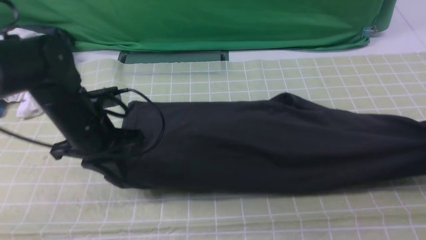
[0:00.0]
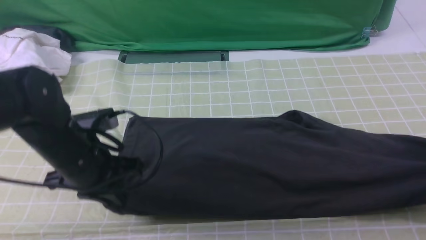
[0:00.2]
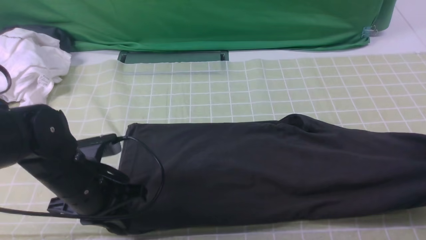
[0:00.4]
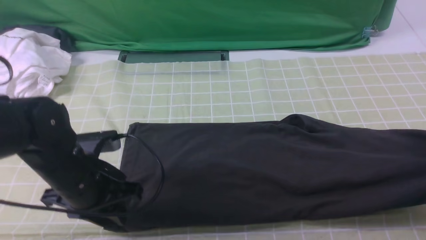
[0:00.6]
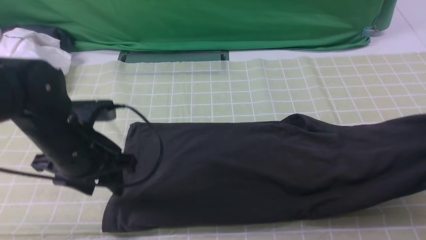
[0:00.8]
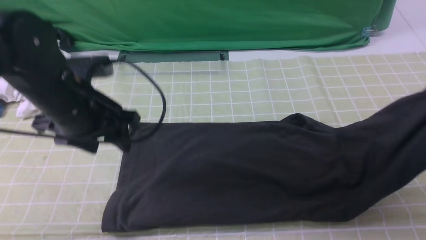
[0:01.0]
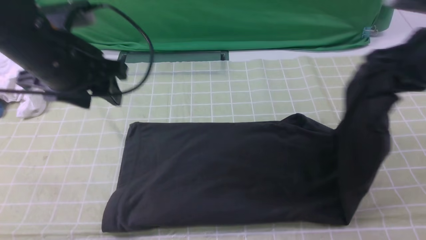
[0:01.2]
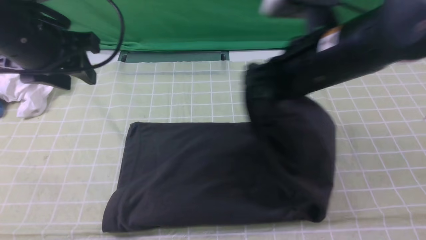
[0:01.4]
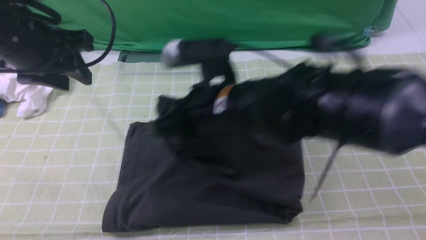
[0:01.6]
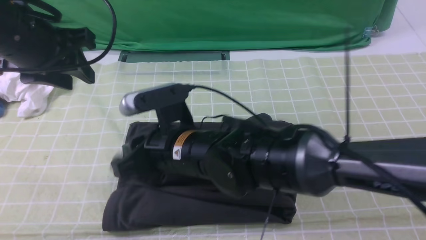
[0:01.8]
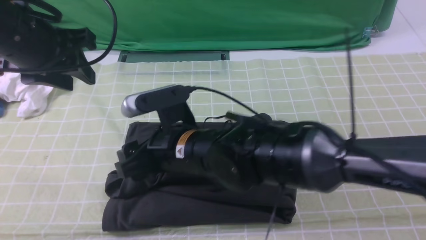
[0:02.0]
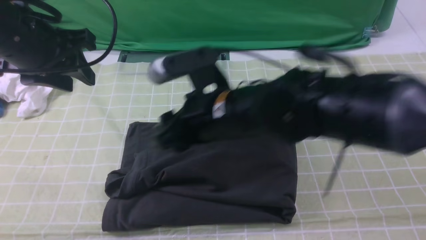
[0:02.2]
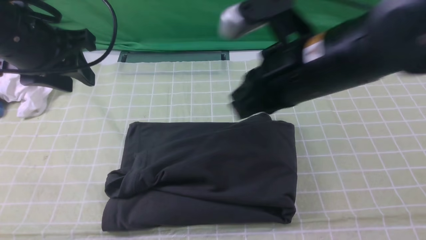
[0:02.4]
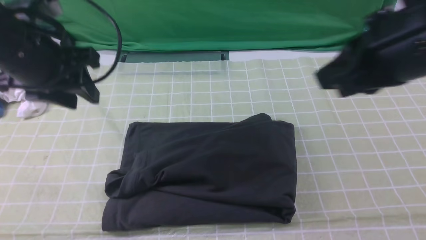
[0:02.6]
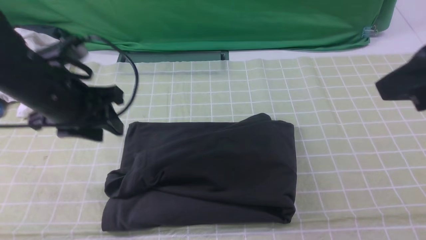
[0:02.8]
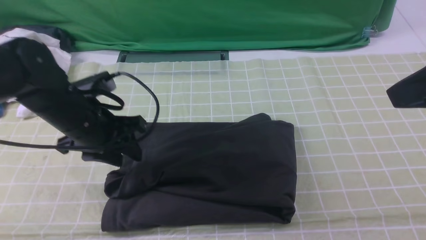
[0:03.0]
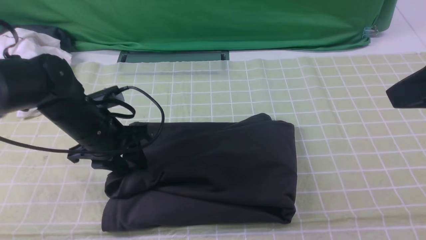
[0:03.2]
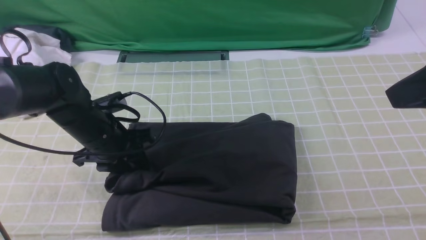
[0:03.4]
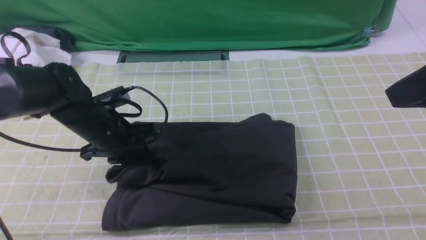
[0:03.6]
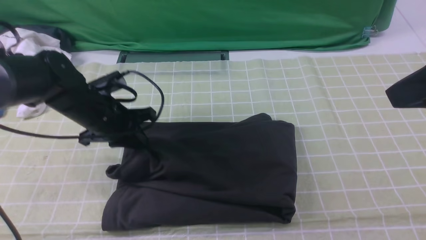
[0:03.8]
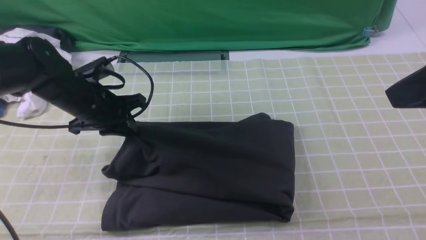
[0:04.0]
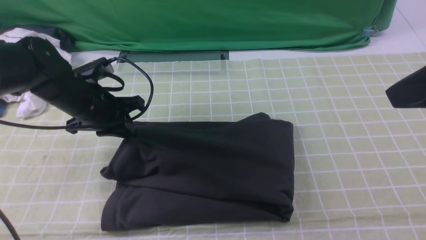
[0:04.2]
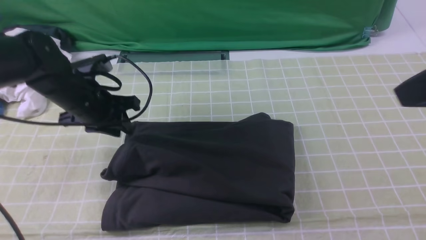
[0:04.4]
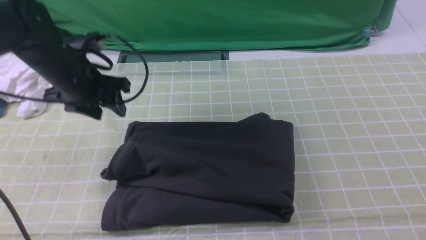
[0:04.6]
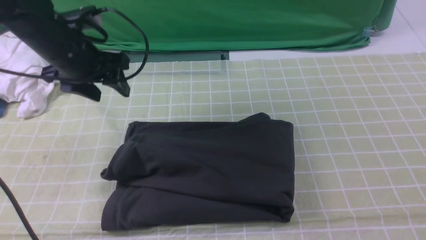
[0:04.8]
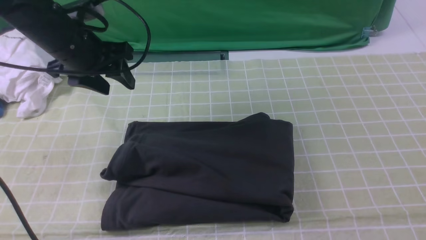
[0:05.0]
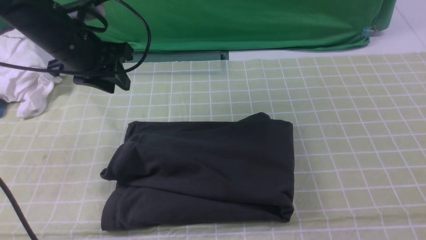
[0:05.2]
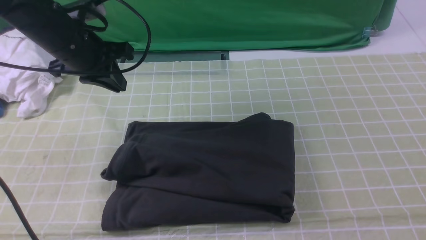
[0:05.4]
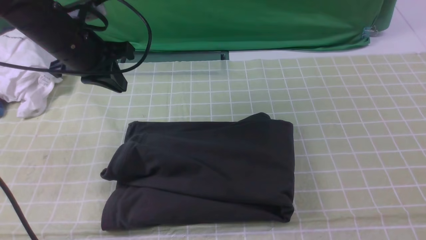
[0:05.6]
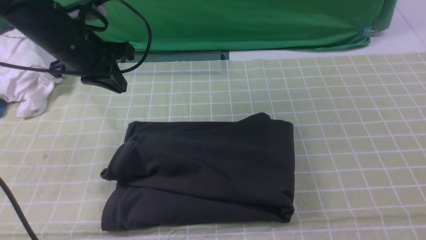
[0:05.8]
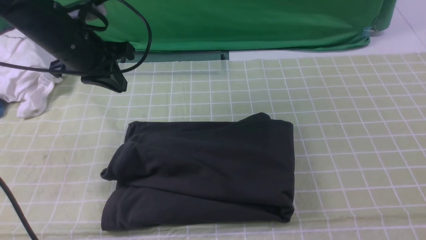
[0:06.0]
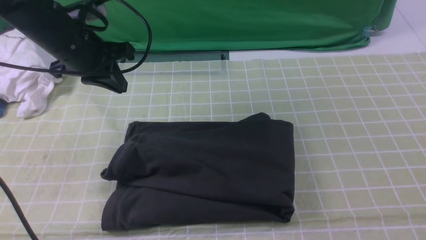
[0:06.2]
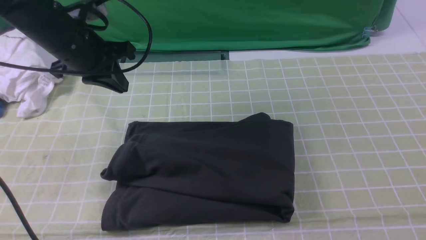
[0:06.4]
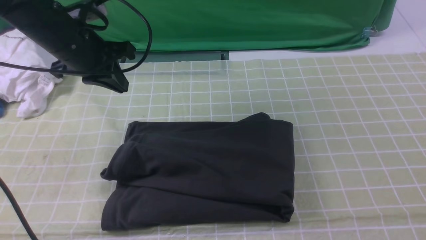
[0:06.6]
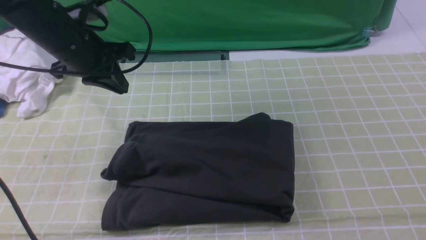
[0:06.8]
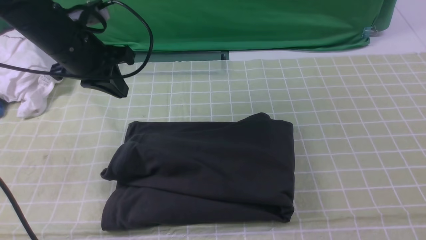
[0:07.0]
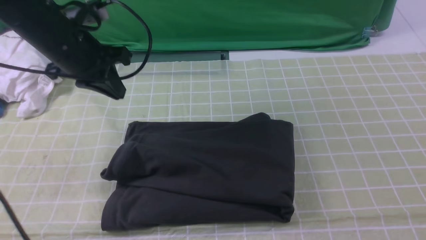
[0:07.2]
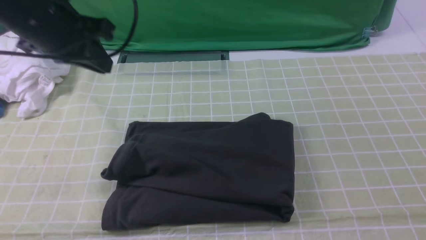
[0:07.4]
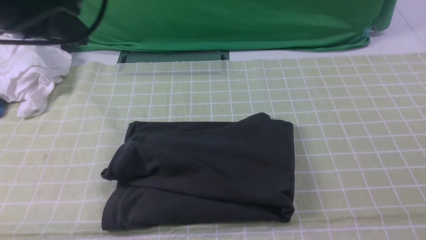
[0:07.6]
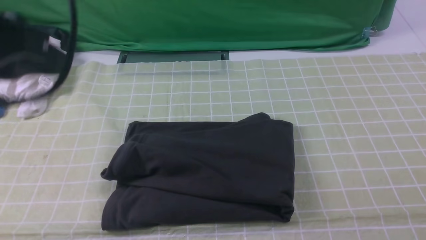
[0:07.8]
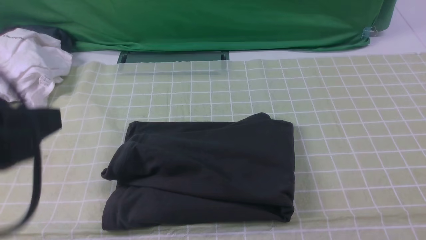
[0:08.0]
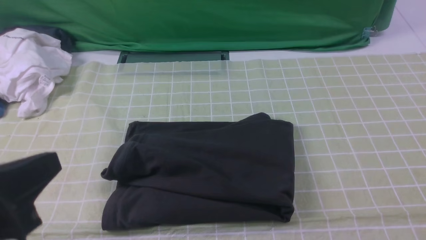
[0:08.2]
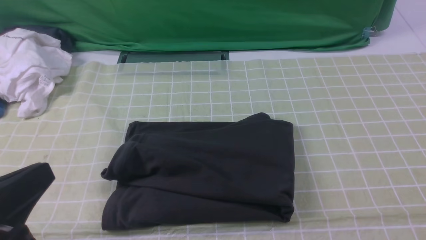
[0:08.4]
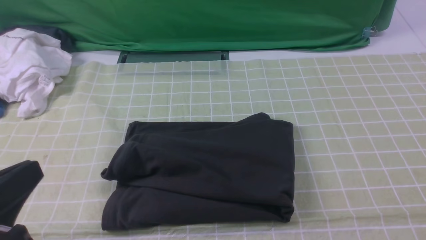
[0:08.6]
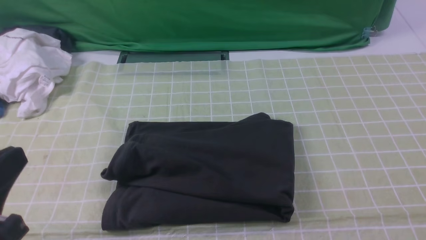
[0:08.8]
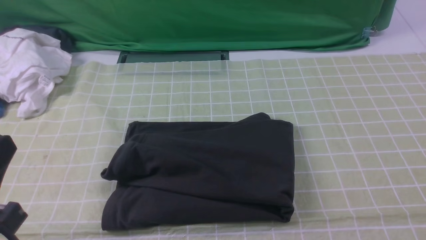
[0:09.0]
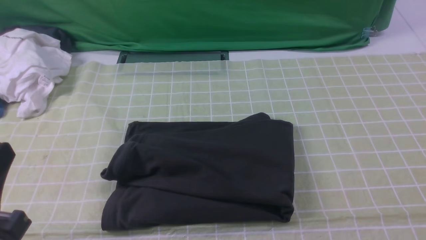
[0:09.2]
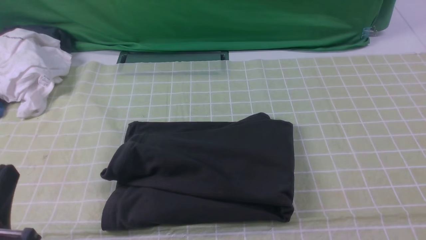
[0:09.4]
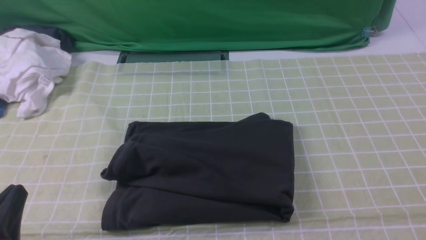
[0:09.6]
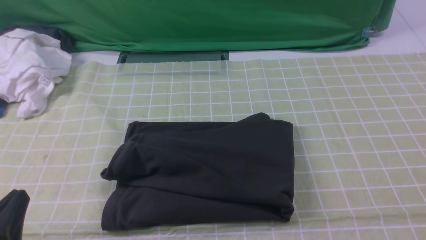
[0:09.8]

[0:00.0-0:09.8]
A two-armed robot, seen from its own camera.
Step, 0:00.0 to 0:02.0: use the right arm to drag the right edge of the fabric to the left and folds it over the left edge.
0:00.0 to 0:01.4: The left gripper moves upward, some 15 cm, and opens. The right gripper moves to the left, about 30 cm.
0:01.4 to 0:02.8: The right gripper heads to the right, upward and backward, covering approximately 20 cm, and opens and closes again. The left gripper goes roughly 10 cm downward.
0:02.8 to 0:04.2: The left gripper travels downward and forward by some 10 cm, and closes its fingers.
0:04.2 to 0:05.6: The right gripper shifts some 20 cm downward, backward and to the right. The left gripper moves upward, approximately 10 cm, and opens, then closes again.
0:07.0 to 0:08.4: The left gripper travels backward by roughly 30 cm.
0:08.4 to 0:09.8: The left gripper travels downward by roughly 10 cm.

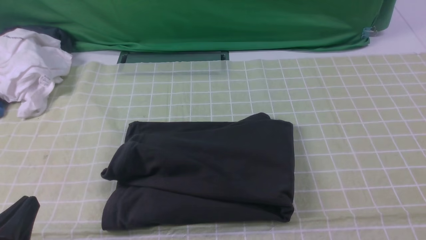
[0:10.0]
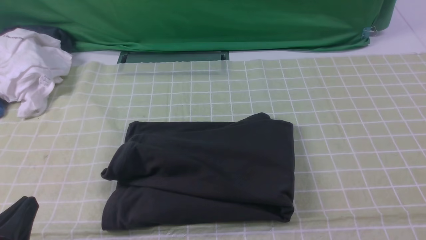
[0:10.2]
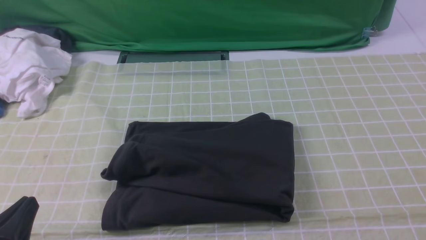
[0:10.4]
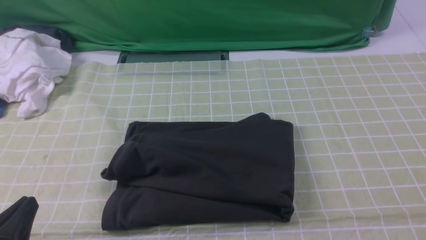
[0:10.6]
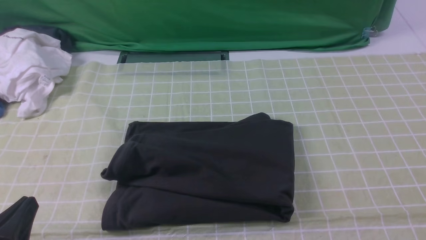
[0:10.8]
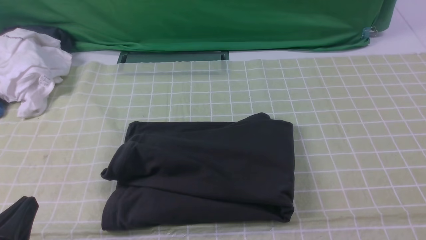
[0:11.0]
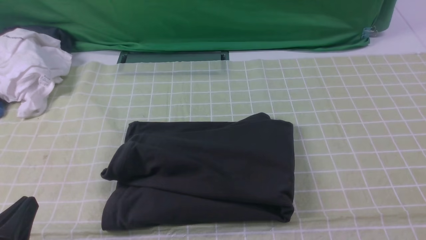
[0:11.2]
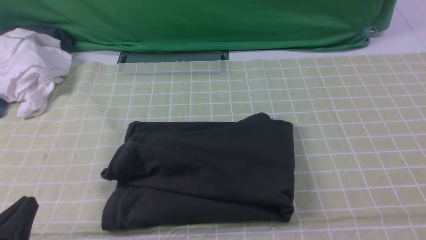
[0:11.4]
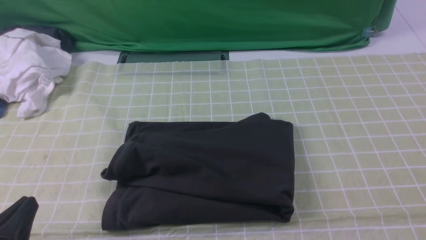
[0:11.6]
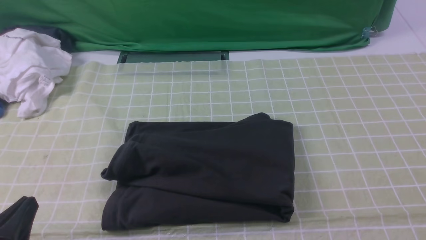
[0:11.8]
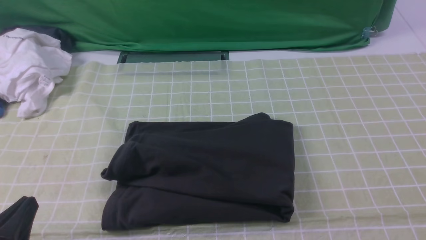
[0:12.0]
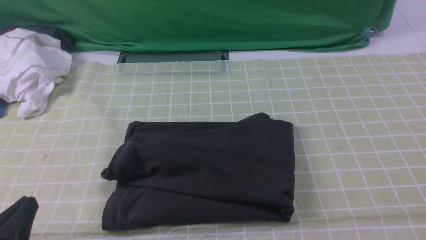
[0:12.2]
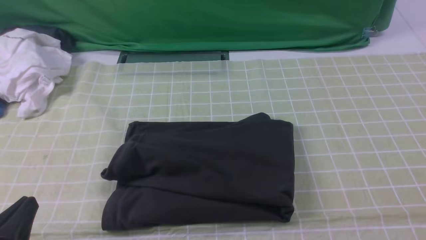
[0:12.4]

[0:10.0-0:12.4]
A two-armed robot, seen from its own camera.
0:10.0 to 0:12.4: Both grippers stay put.
